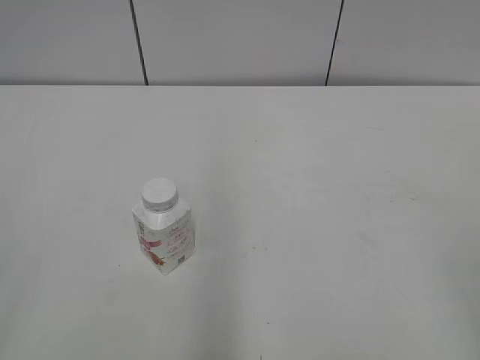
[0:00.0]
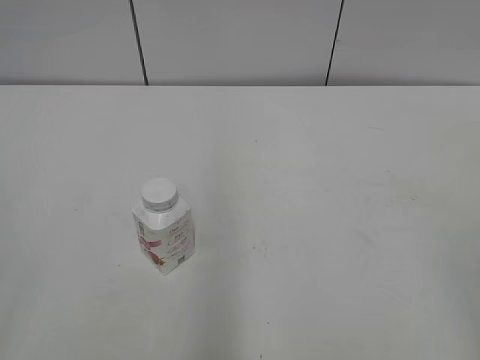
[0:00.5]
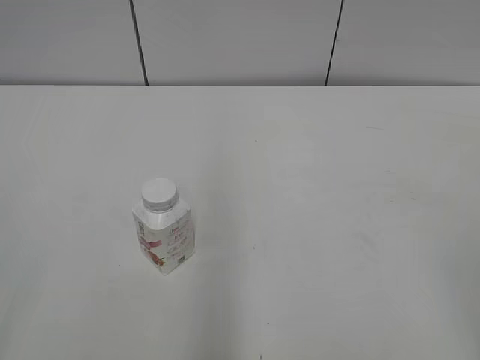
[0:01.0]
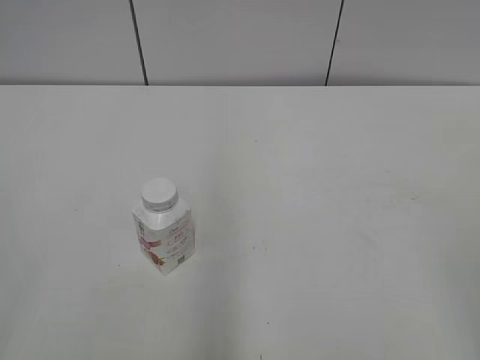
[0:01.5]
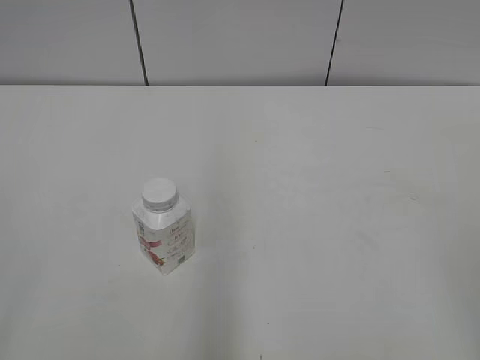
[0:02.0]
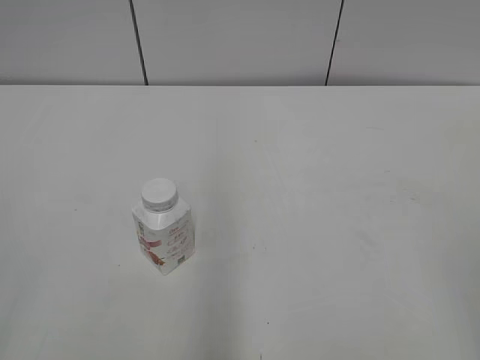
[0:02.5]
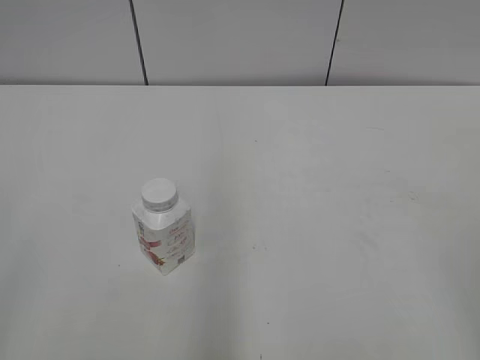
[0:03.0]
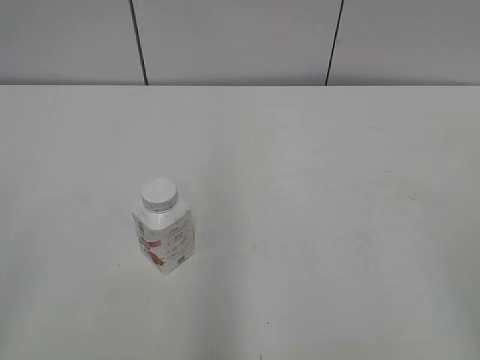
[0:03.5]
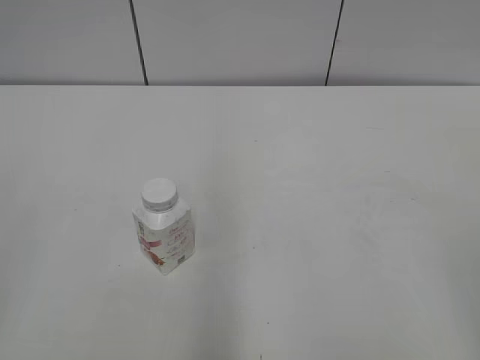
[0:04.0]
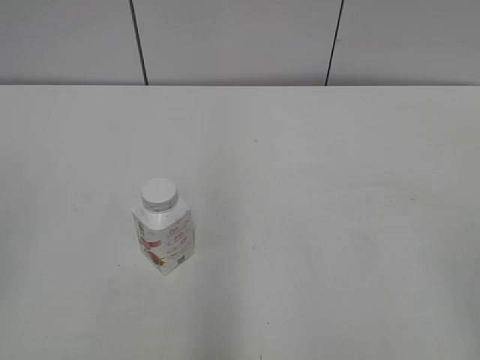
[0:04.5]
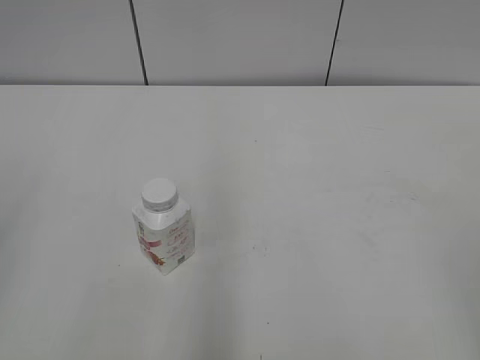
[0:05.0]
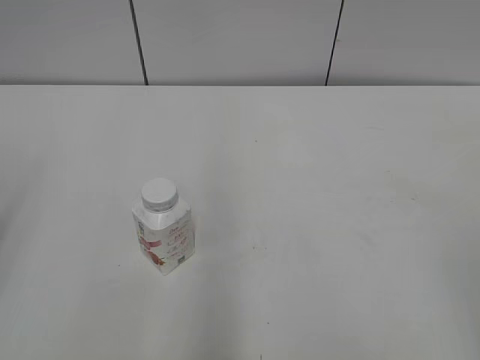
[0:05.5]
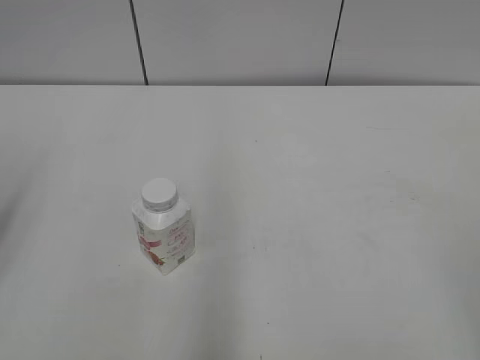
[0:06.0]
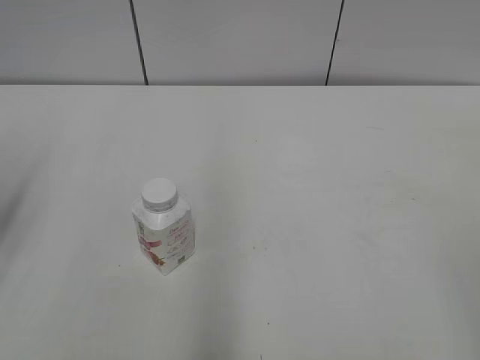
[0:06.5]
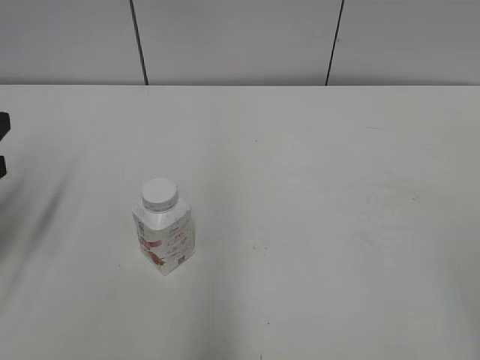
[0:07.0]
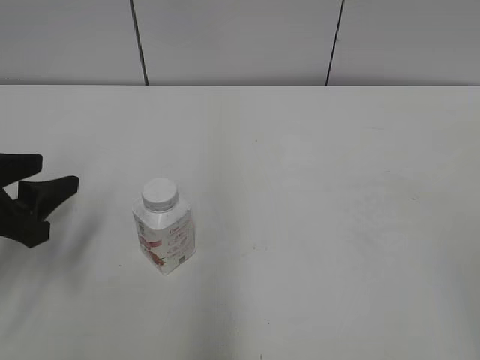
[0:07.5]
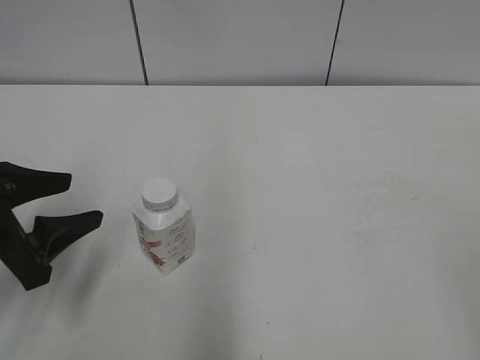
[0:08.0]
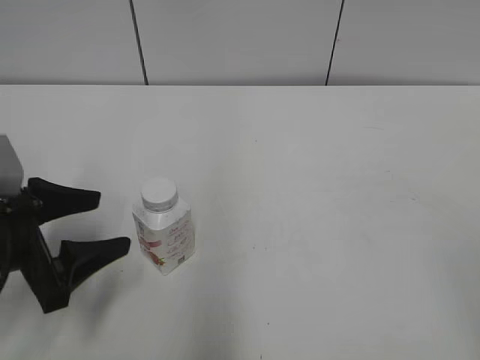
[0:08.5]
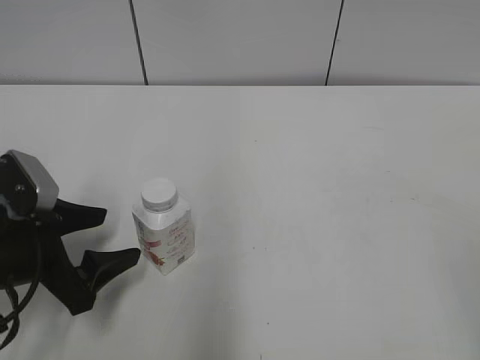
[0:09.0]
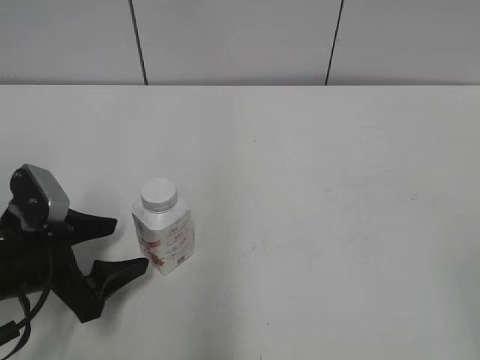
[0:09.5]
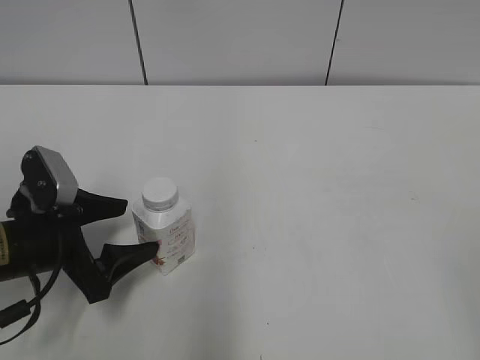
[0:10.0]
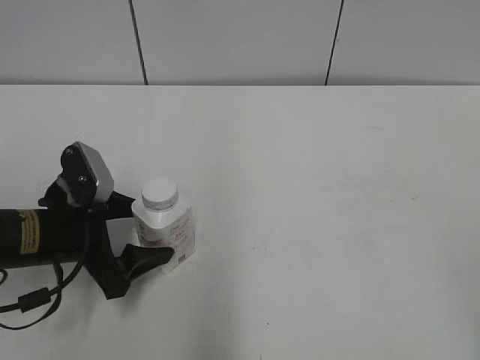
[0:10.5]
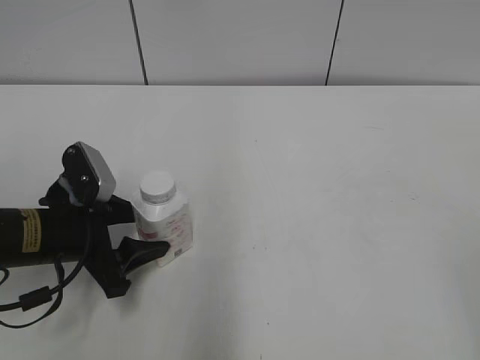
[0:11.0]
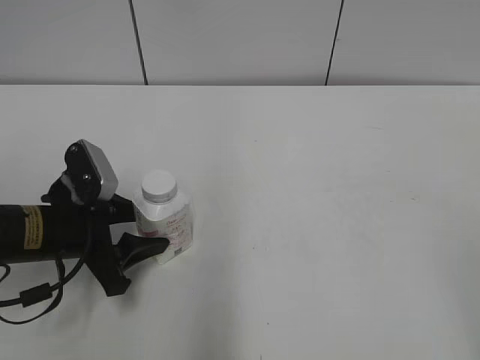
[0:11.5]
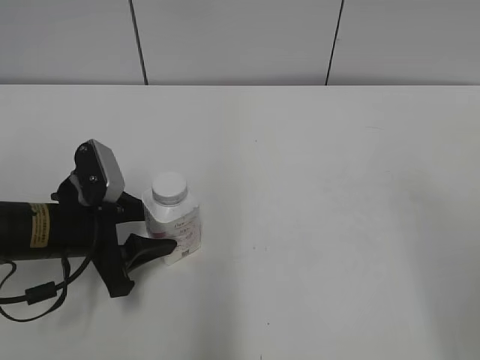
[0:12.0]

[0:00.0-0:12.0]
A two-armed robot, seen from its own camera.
Step, 0:00.0 to 0:11.0: Grab the Yili Changqing with the left hand.
0:06.0 to 0:08.0: The left gripper is displaced downward and to the right by some 15 cm.
0:08.0 to 0:10.0: The left gripper shifts roughly 5 cm downward.
0:10.0 to 0:12.0: The right gripper is displaced forward by approximately 10 cm; the left gripper closes its fingers.

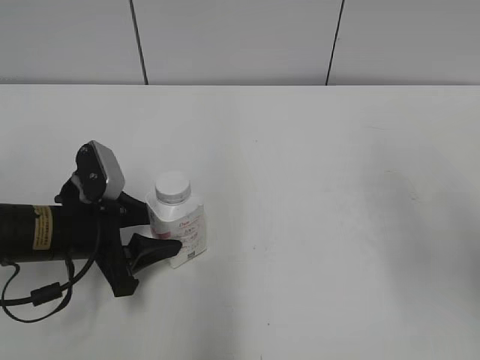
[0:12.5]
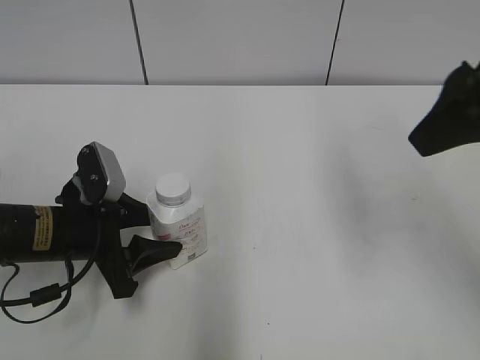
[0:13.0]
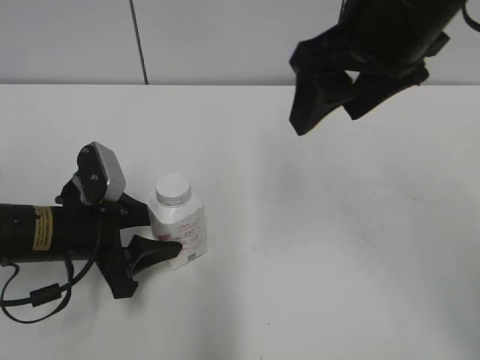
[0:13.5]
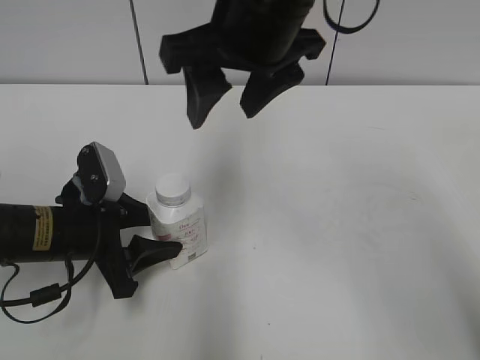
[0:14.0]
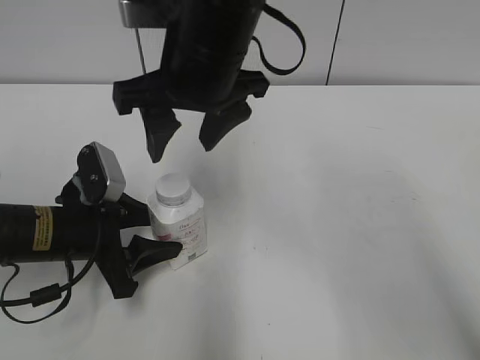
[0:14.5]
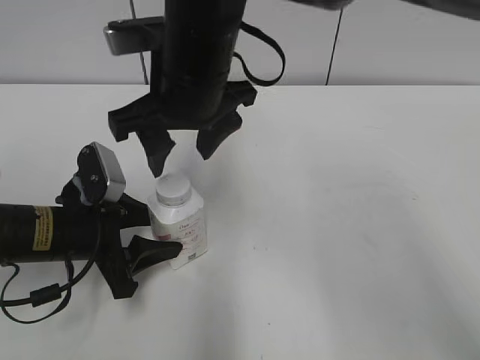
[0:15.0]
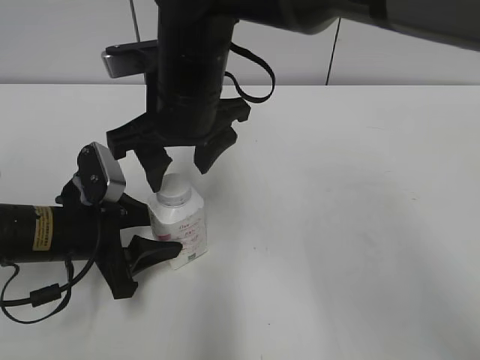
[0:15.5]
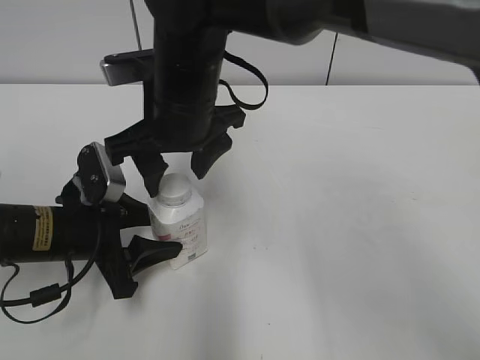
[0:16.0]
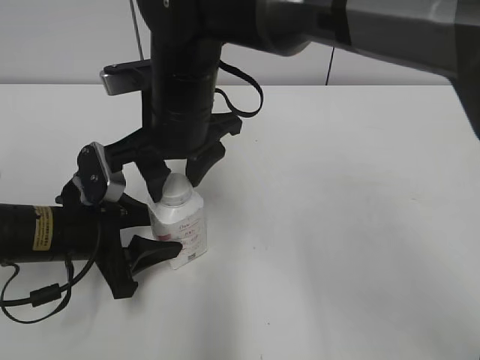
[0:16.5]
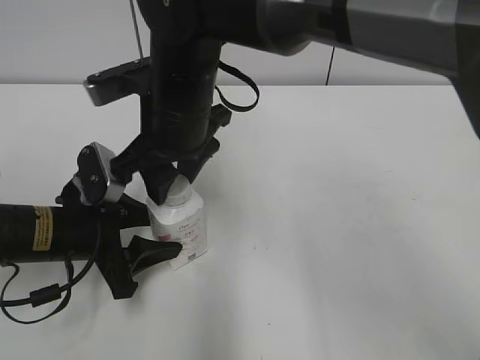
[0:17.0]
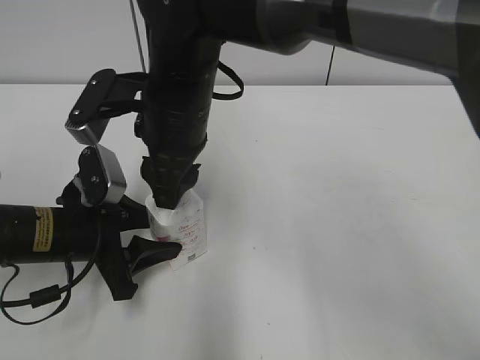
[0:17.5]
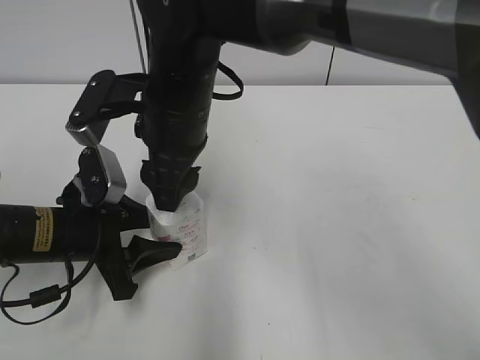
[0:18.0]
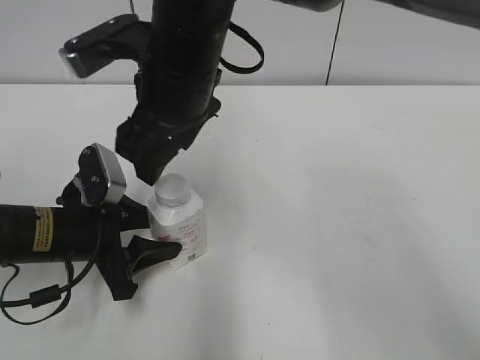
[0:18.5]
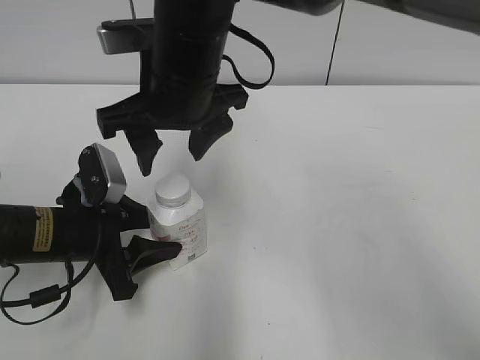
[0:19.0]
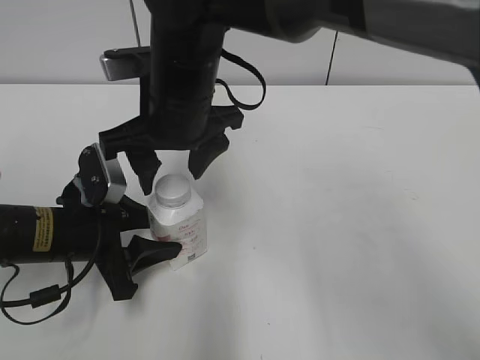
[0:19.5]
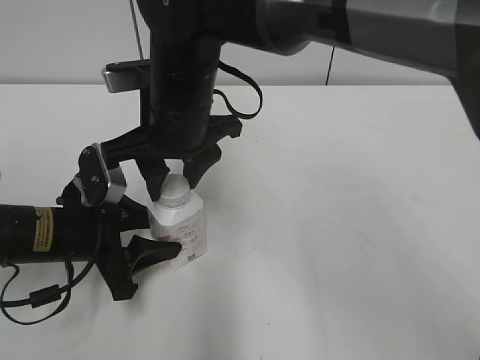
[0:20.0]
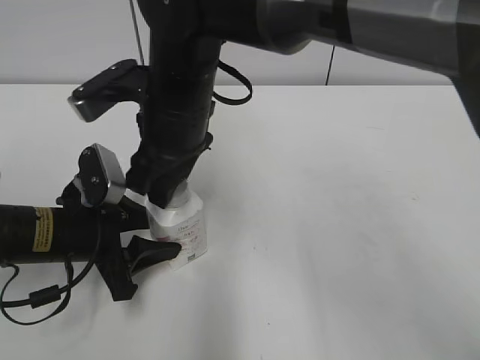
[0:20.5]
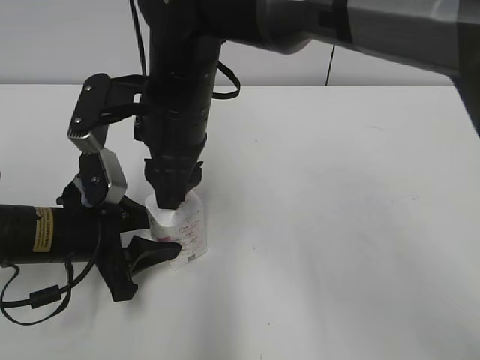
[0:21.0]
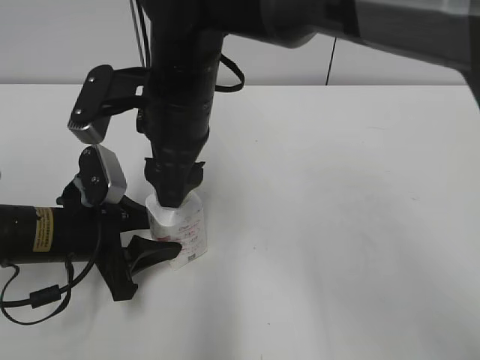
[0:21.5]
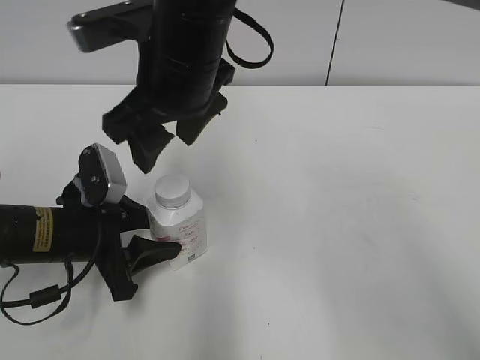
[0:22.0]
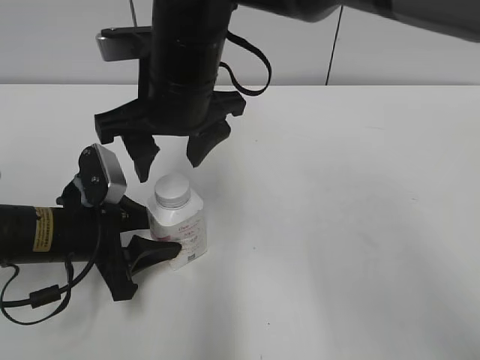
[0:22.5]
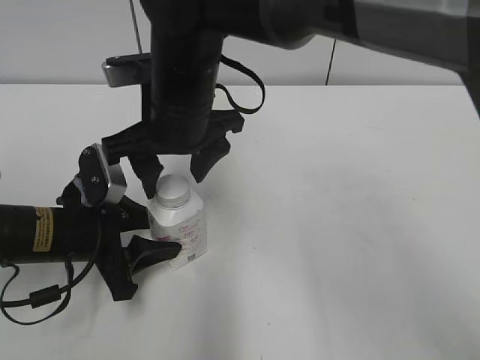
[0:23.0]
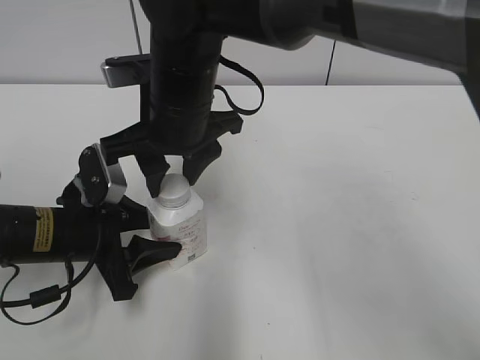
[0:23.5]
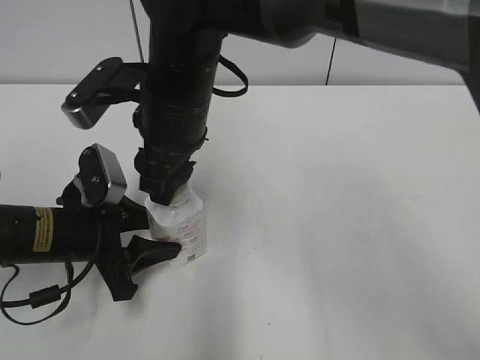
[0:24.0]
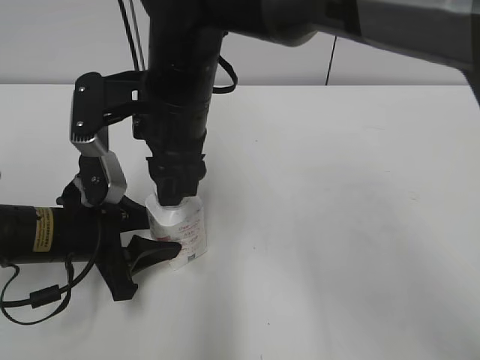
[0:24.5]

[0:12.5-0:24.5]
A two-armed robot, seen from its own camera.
0:12.5 to 0:14.5: The right gripper is displaced to the left and forward by some 30 cm.
0:14.5 to 0:16.5: The right gripper shifts roughly 5 cm downward, and closes.
0:16.5 to 0:18.5: The right gripper opens up.
0:18.5 to 0:20.5: The right gripper closes.
0:20.5 to 0:22.5: The right gripper opens its fingers.
0:22.5 to 0:24.5: The right gripper closes its fingers.

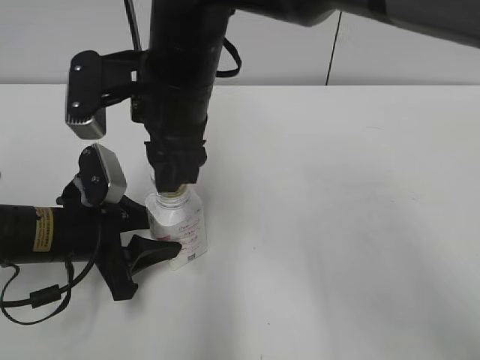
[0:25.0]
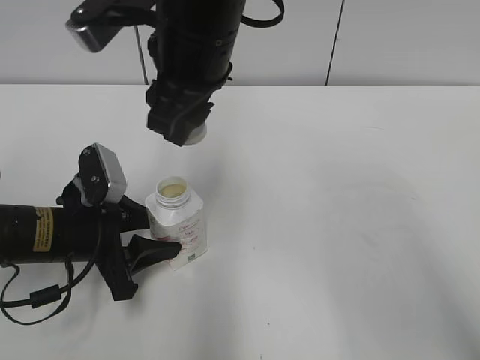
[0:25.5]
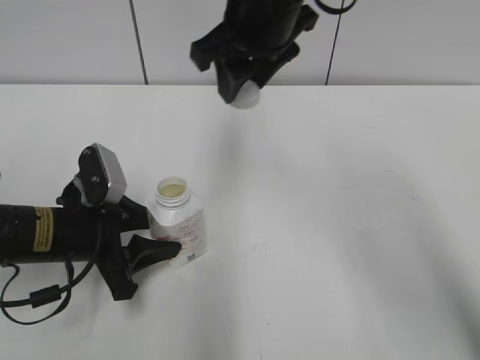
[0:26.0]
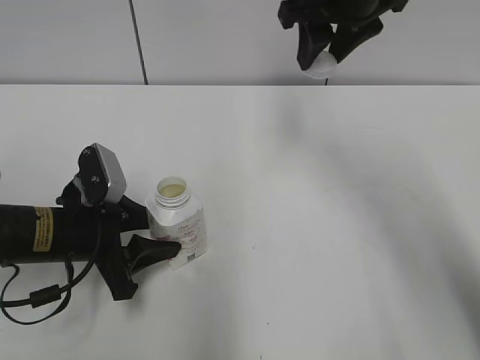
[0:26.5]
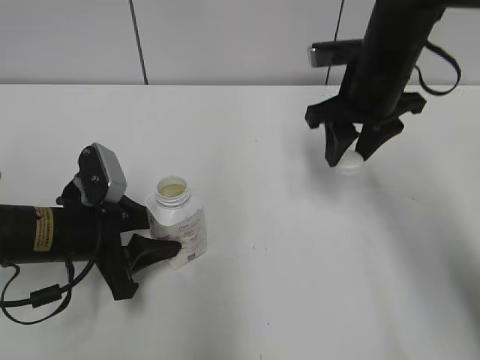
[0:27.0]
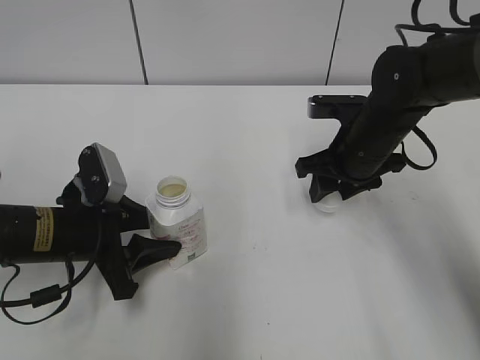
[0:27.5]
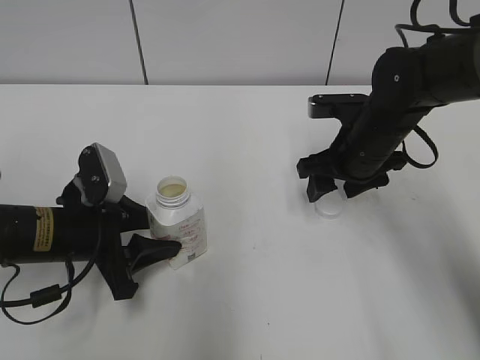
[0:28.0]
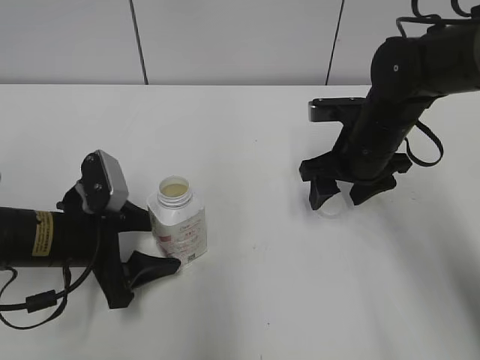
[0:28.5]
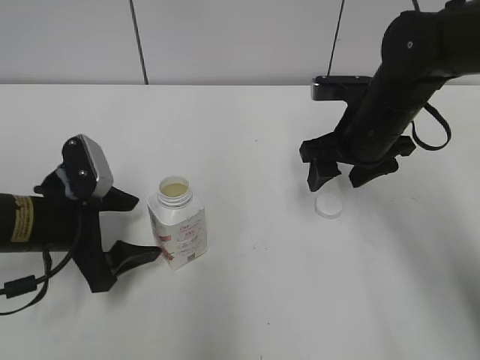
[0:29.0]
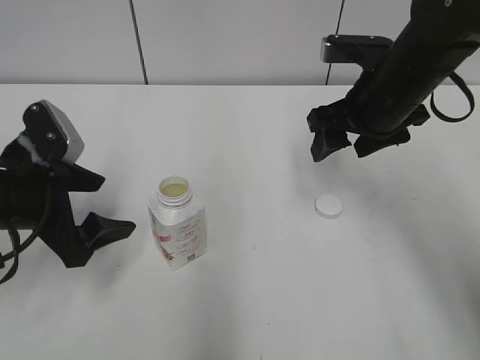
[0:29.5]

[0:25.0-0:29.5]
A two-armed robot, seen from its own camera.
Step, 0:25.5 to 0:28.0: Place the bottle cap on the right.
0:25.0 to 0:27.0: The right gripper shifts some 20 cm to the right.
0:27.0 to 0:29.5: The left gripper travels upward by about 5 cm, and opens; the right gripper goes downward and returns, roughly 5 cm each way, and opens its fingers.
